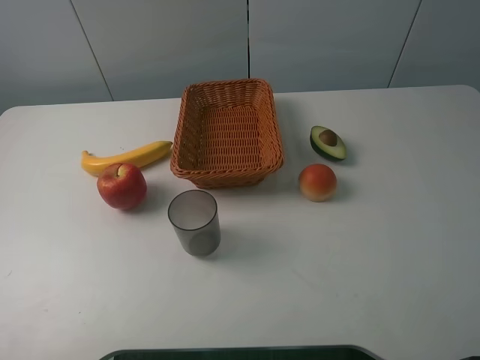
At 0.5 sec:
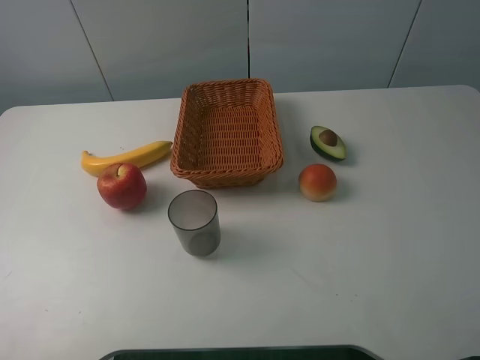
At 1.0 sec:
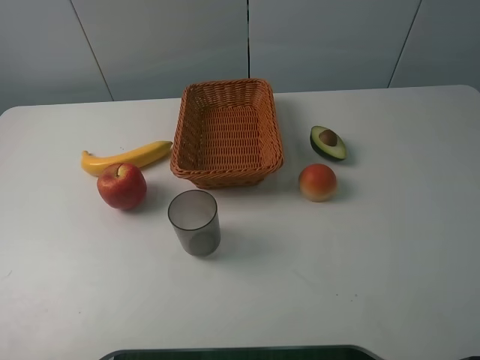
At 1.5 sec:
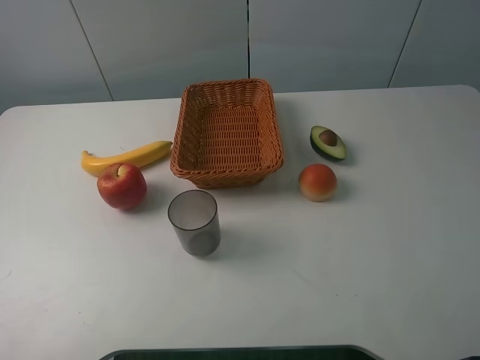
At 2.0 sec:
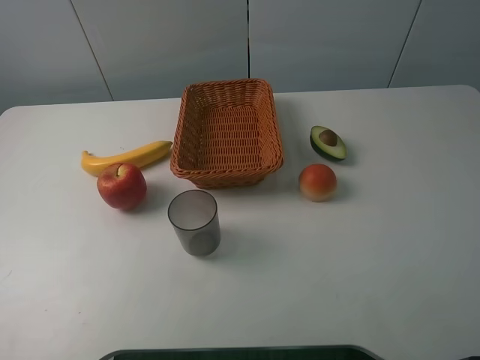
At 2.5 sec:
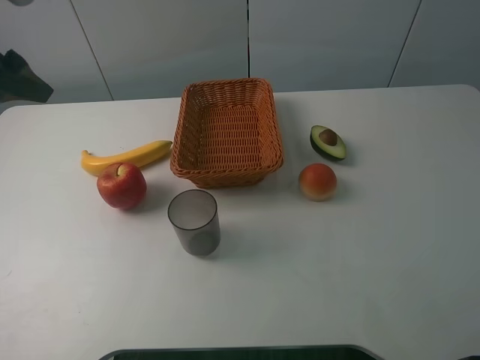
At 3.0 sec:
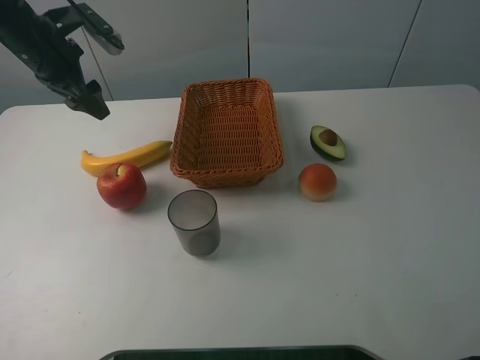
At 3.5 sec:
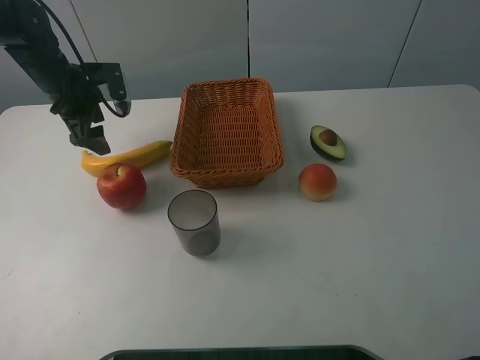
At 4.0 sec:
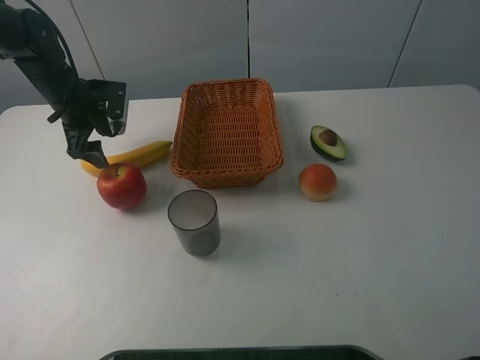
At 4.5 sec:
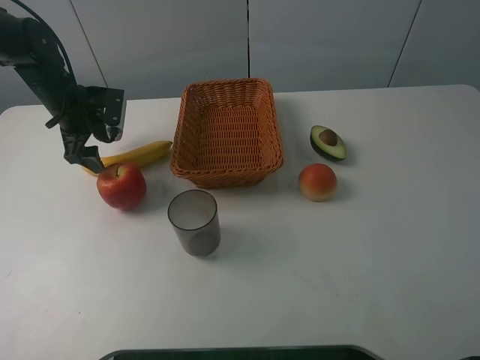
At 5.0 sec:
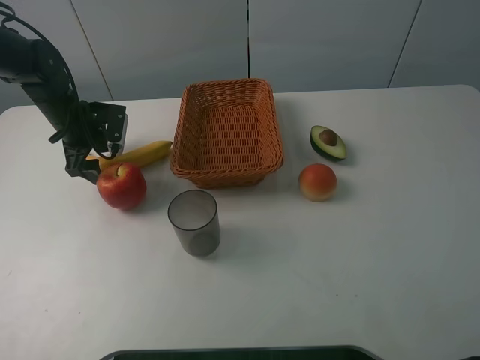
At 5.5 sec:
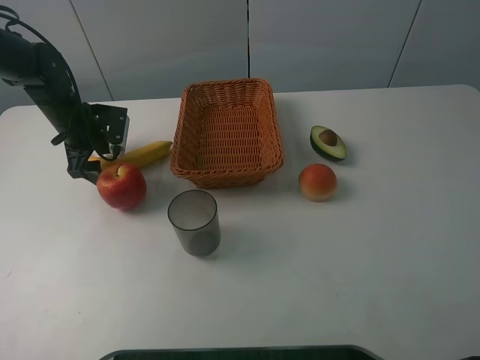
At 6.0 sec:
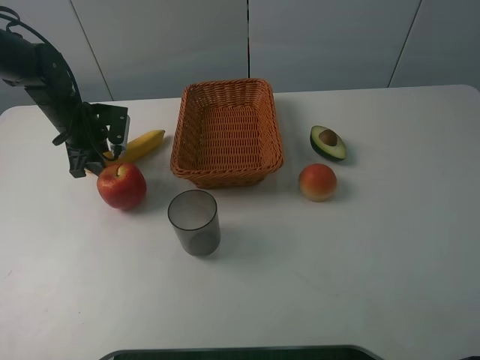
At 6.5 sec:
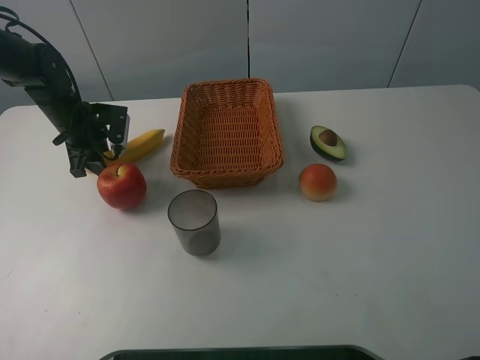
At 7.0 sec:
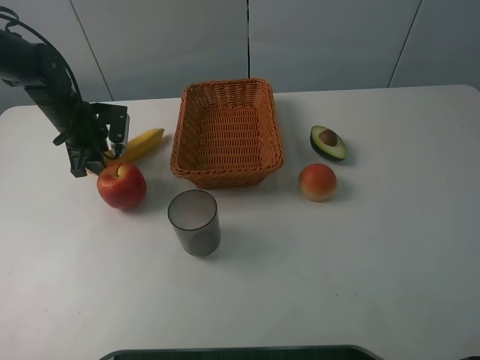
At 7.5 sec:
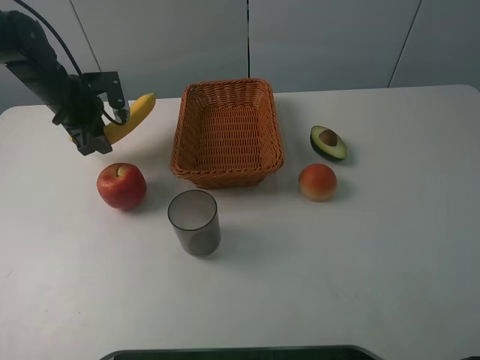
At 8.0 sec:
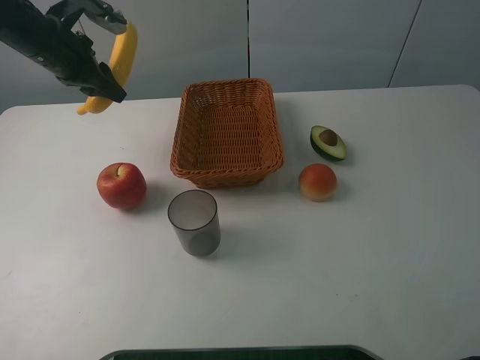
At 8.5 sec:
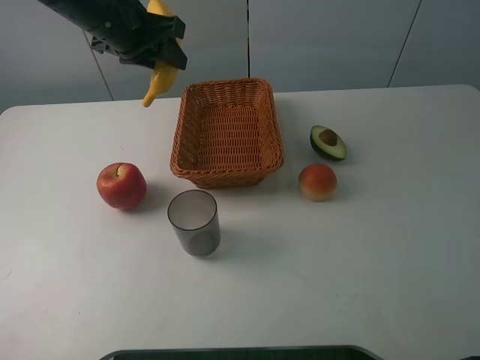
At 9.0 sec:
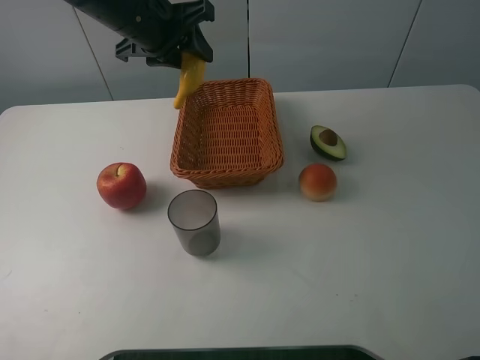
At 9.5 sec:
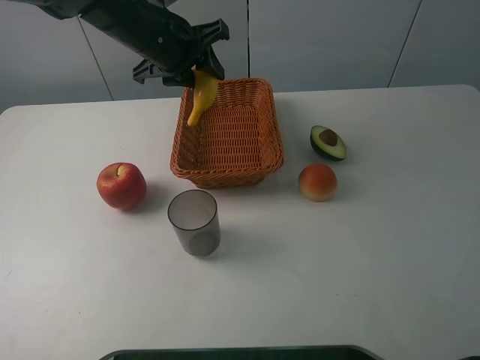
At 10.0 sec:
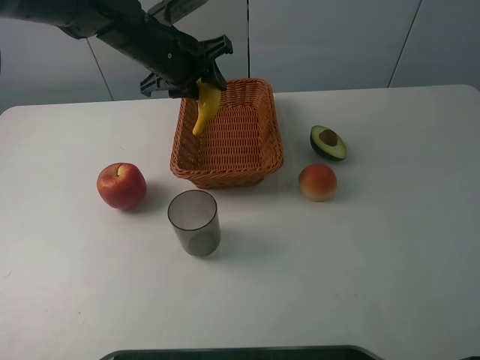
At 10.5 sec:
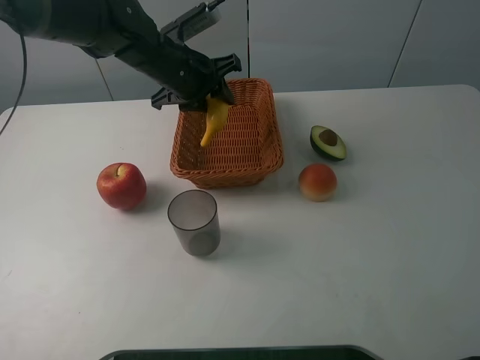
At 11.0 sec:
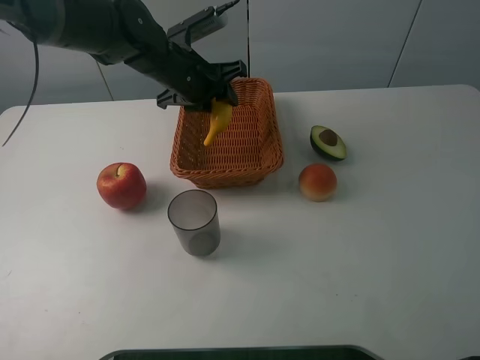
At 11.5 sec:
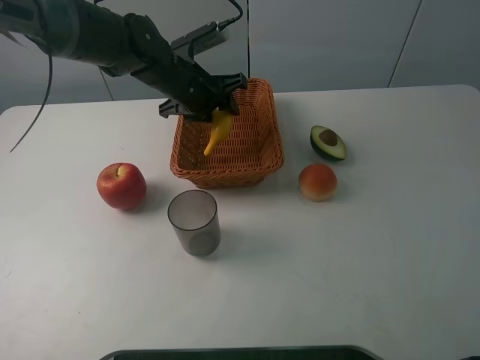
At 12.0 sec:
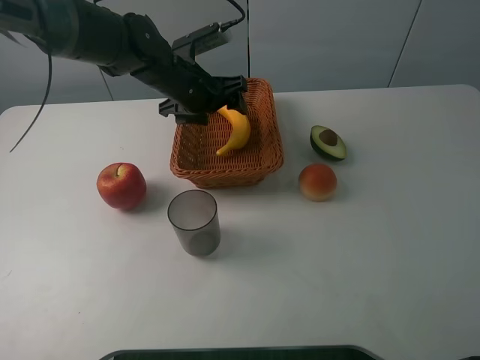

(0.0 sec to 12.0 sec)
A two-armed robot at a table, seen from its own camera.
2.0 sec - 4.0 sec: The left gripper is displaced forward and downward by roughly 35 cm.
4.0 sec - 6.0 sec: The left gripper closes up.
6.0 sec - 8.0 sec: The left gripper is displaced upward by about 15 cm.
8.0 sec - 10.0 sec: The left gripper moves to the right, about 15 cm.
10.0 sec - 12.0 sec: The left gripper heads downward, covering about 5 cm, and opens its fingers.

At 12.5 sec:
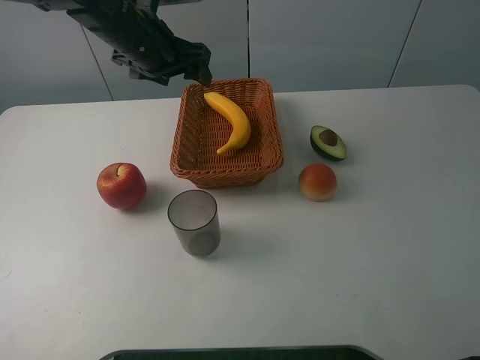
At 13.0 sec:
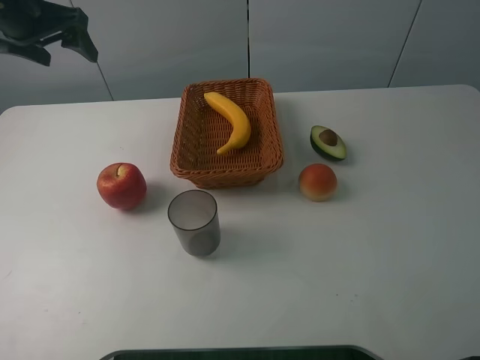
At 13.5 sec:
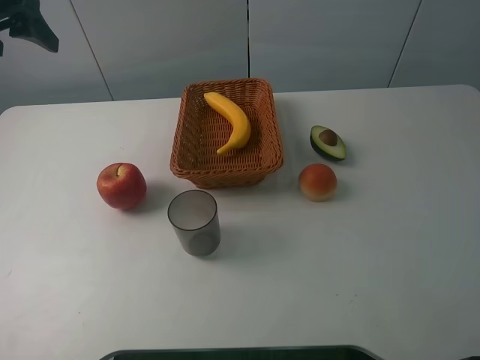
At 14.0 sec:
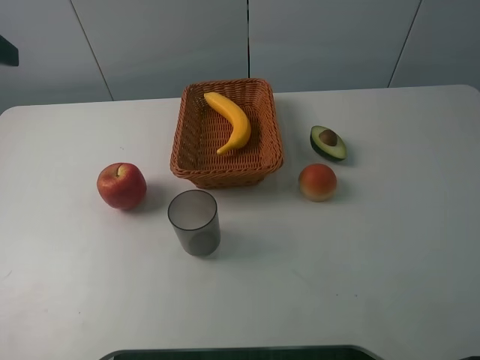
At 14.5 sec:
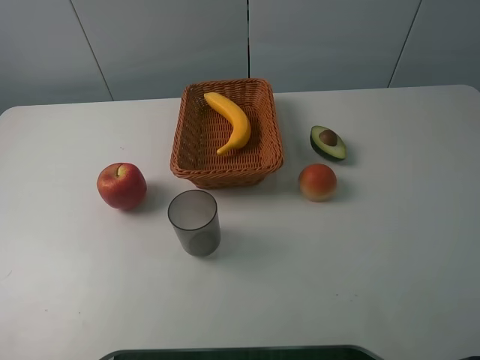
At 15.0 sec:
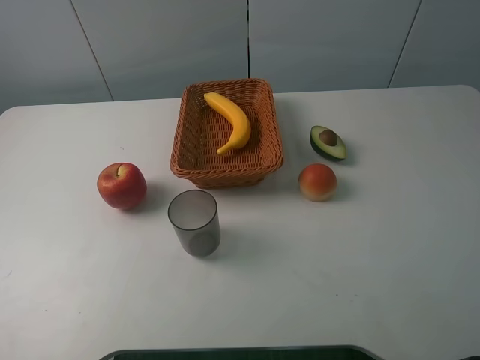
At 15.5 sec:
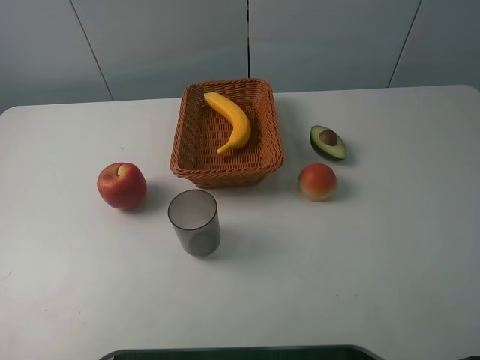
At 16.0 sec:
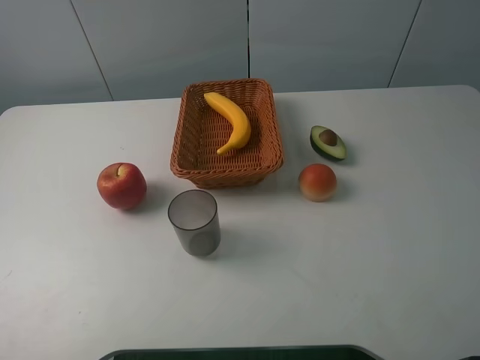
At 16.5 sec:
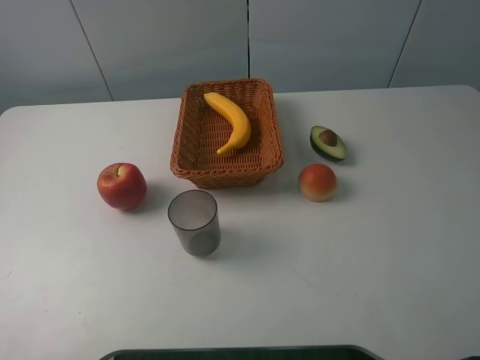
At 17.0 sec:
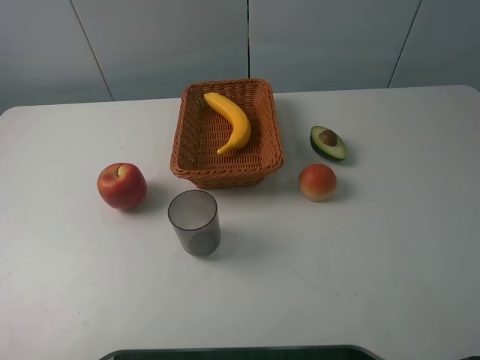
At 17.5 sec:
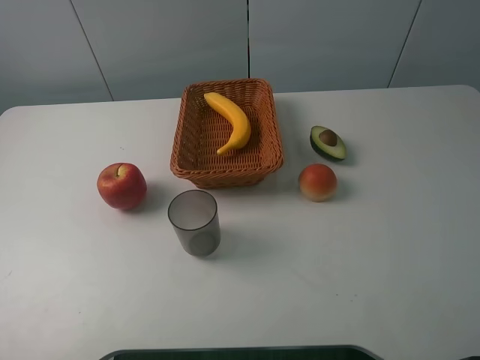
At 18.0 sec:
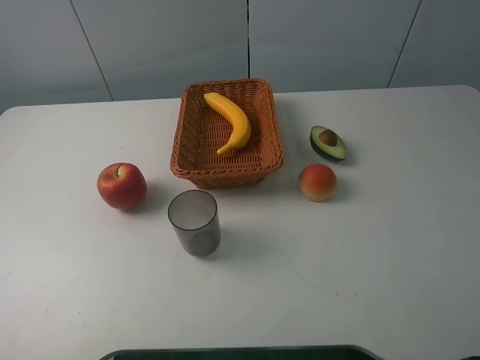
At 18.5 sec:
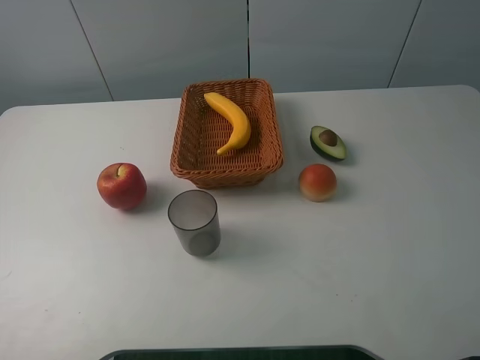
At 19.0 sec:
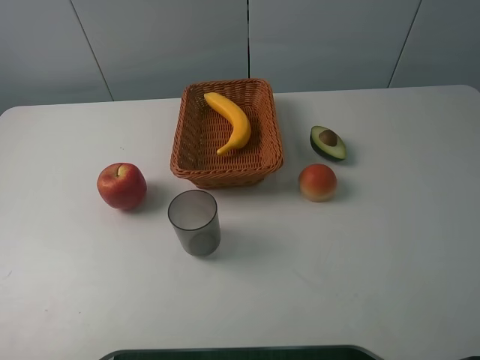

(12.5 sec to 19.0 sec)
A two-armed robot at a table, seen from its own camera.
12.5 sec - 14.5 sec: The left gripper is displaced backward, to the left and upward by about 30 cm.
17.0 sec - 19.0 sec: The two grippers keep their place.
